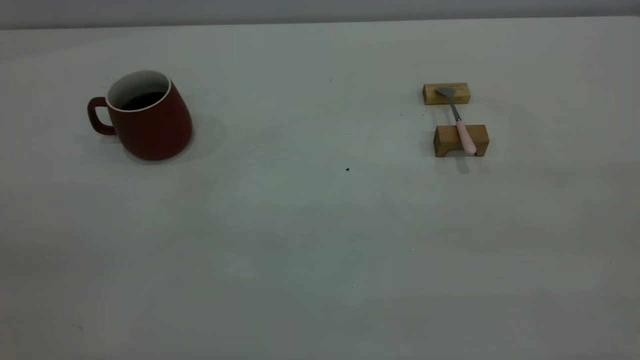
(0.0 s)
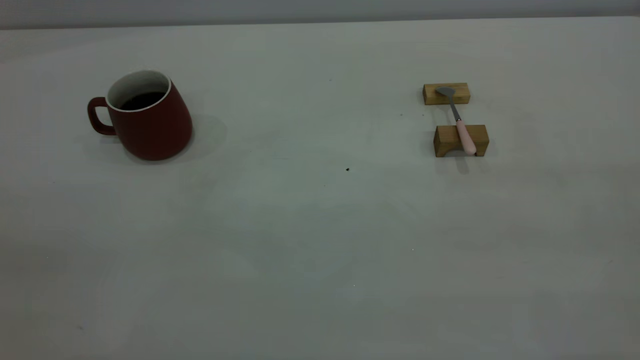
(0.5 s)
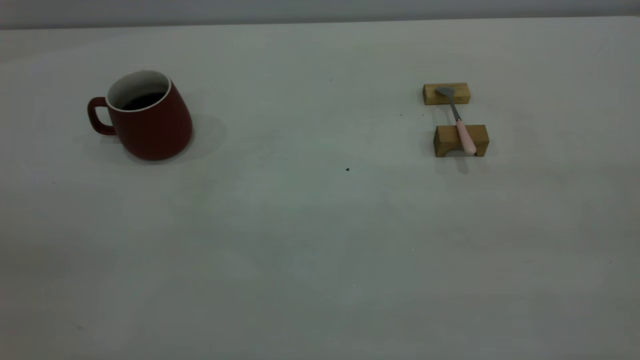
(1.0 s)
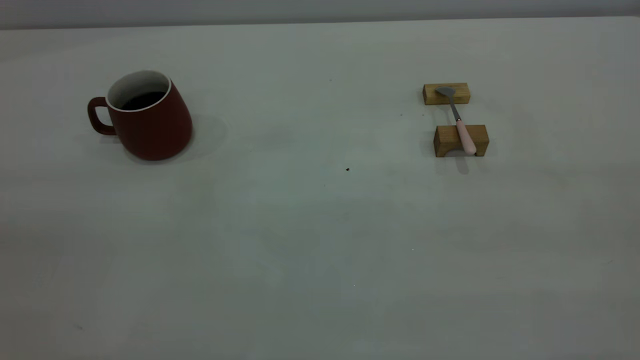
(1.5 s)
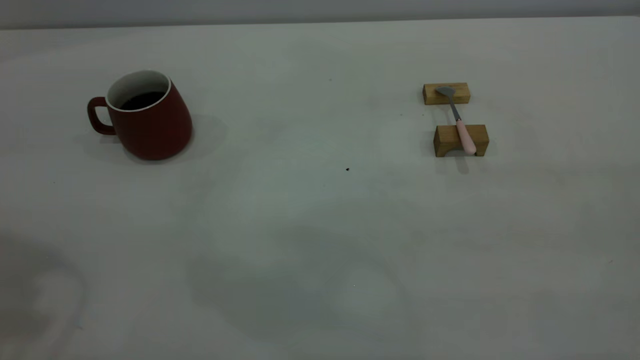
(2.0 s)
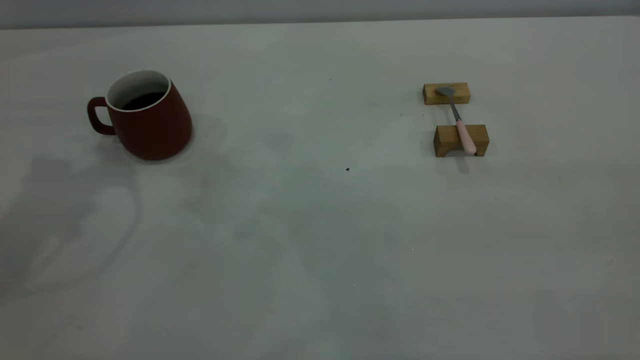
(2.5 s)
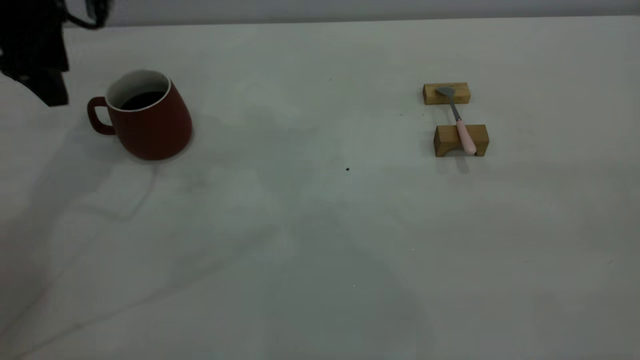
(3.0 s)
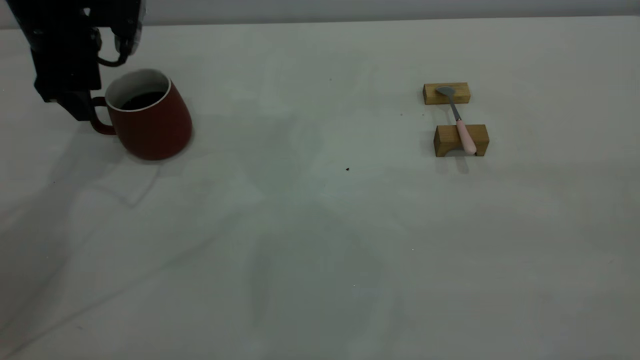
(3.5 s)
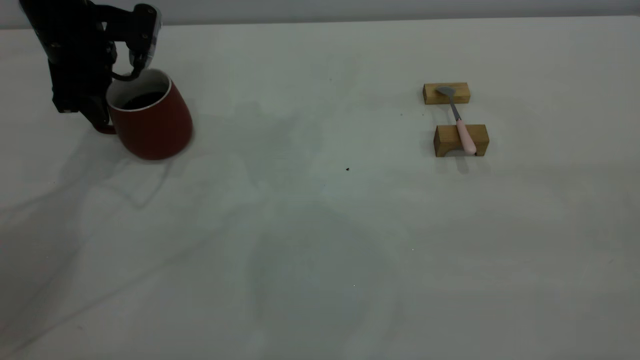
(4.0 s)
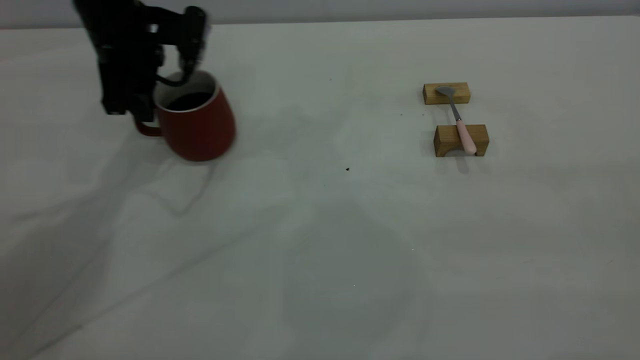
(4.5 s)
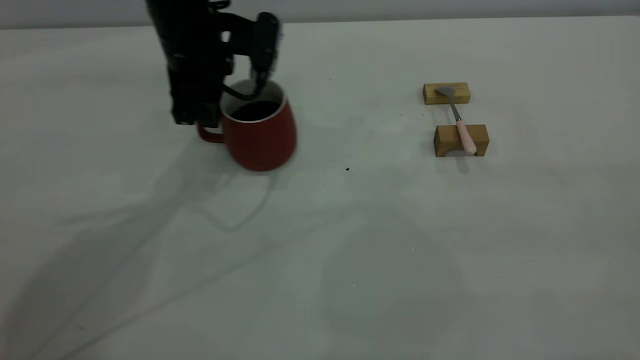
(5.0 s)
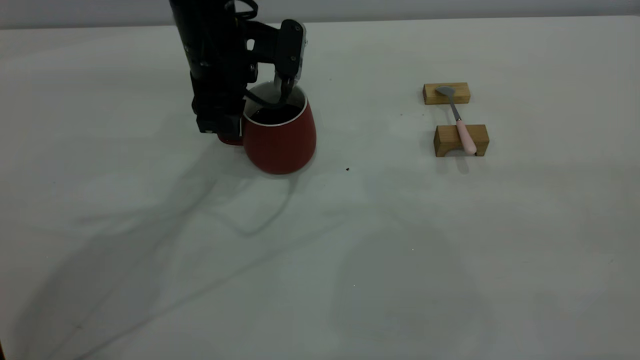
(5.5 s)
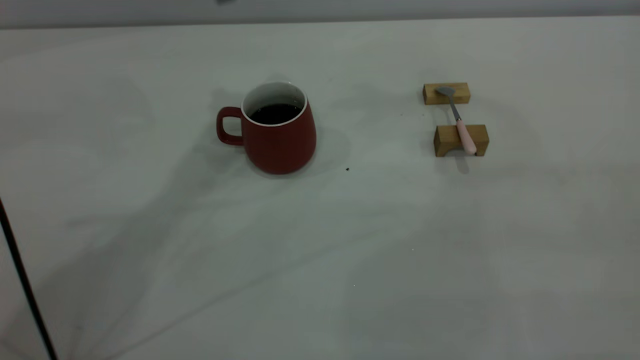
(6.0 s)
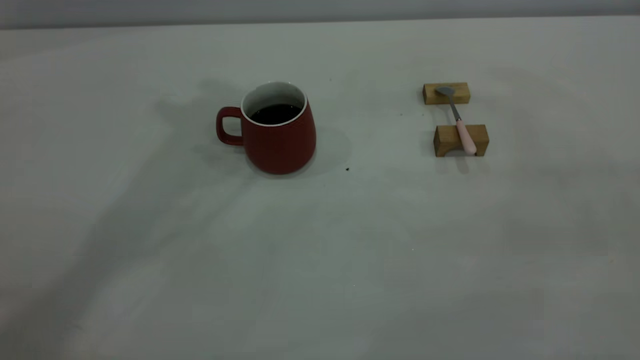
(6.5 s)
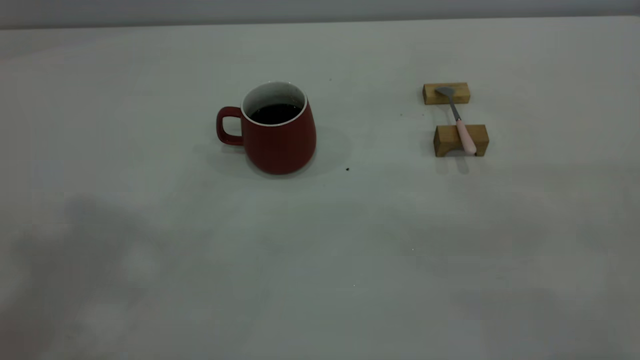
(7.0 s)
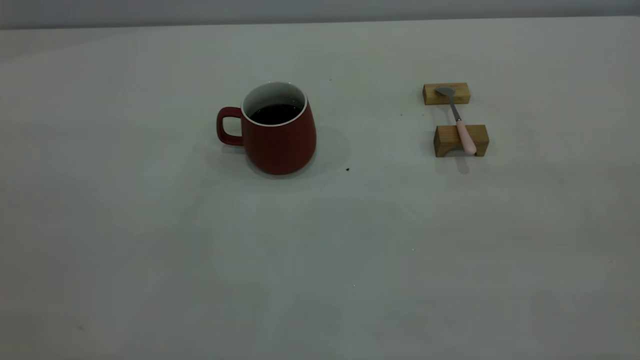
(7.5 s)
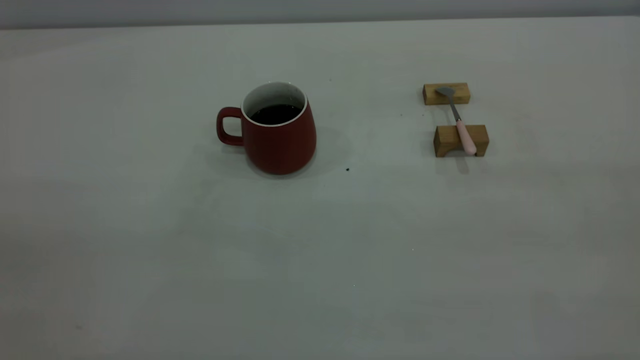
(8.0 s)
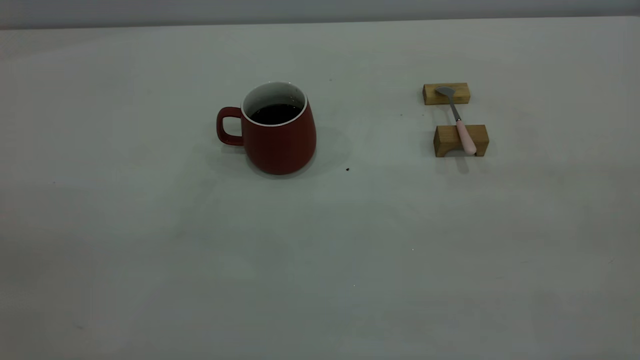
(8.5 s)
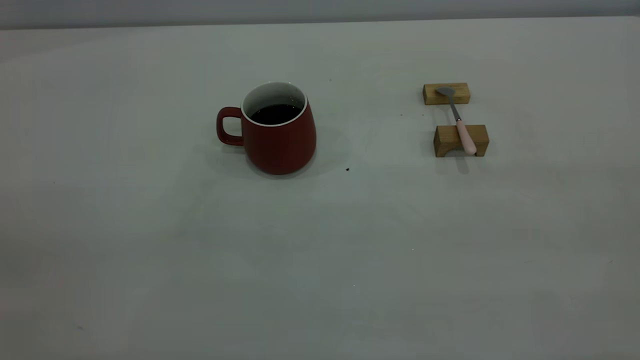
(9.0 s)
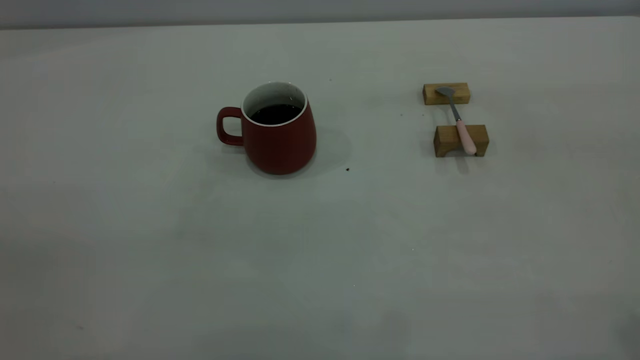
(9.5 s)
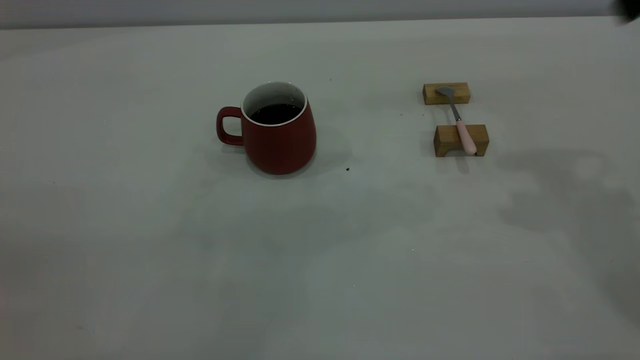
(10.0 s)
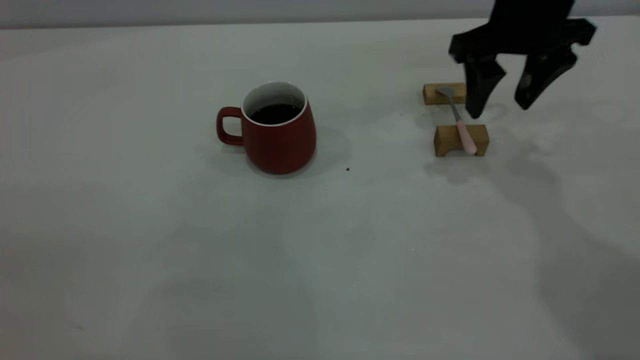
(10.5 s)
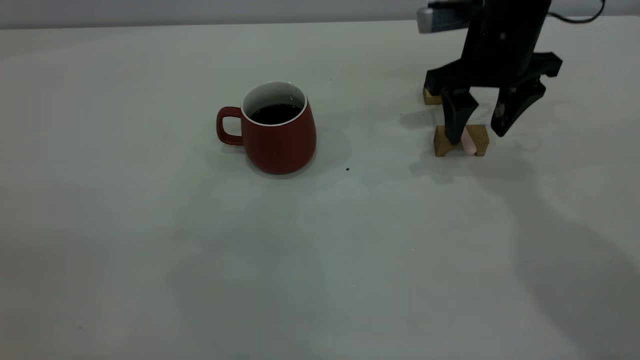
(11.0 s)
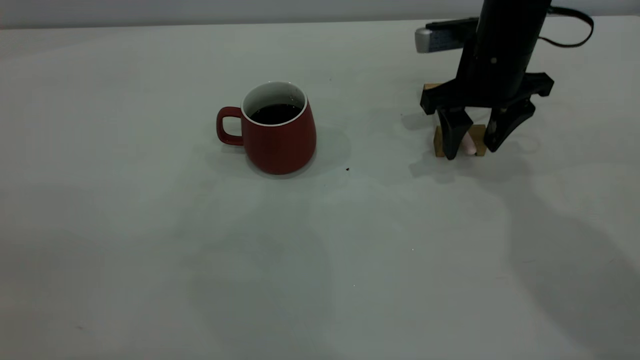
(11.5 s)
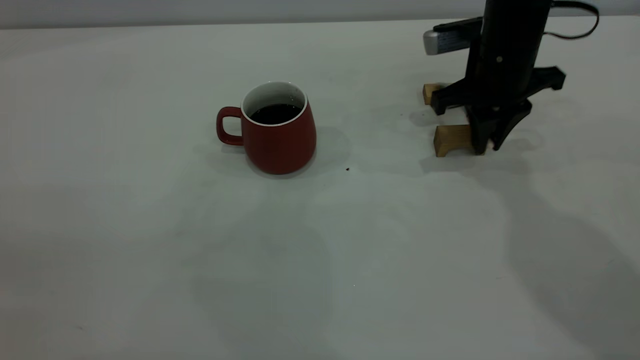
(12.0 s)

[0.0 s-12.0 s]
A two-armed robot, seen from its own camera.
Step, 0.0 to 5.5 s: Move the cup with coffee to the center of view.
2.0 to 4.0 s: The left gripper heads forward and downward, covering some 35 cm, and closes up.
4.0 to 6.0 s: The left gripper heads upward and to the right, covering some 25 cm, and opens.
6.0 to 8.0 s: The left gripper heads backward and to the left, covering about 50 cm, and closes.
10.0 to 12.0 s: The right gripper moves downward and forward, roughly 20 cm, and closes up.

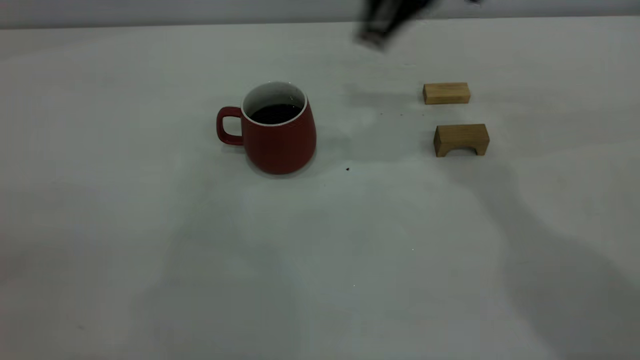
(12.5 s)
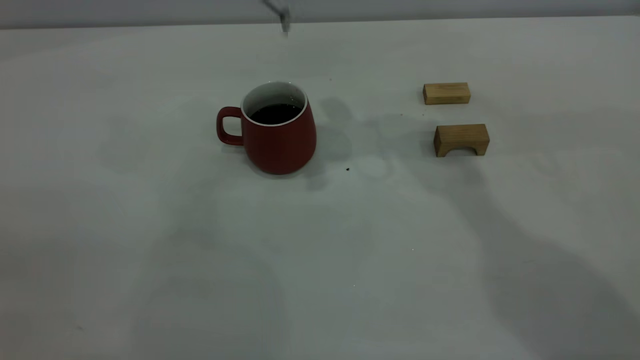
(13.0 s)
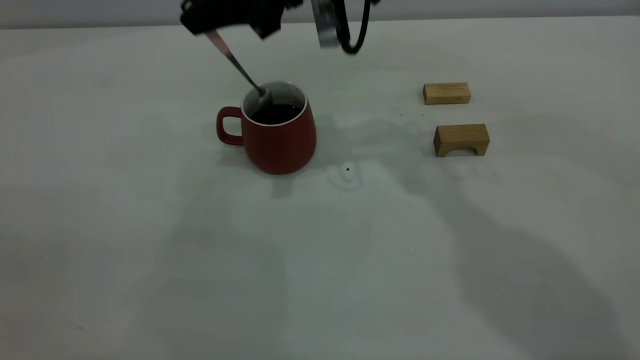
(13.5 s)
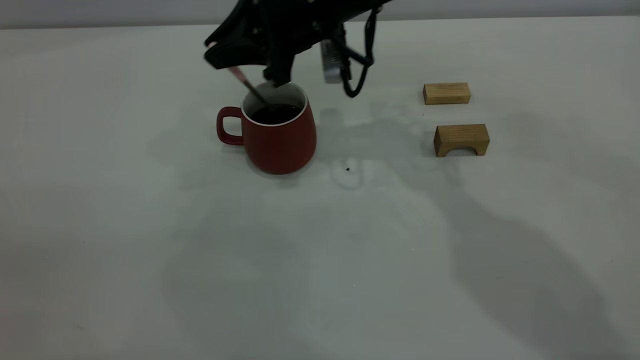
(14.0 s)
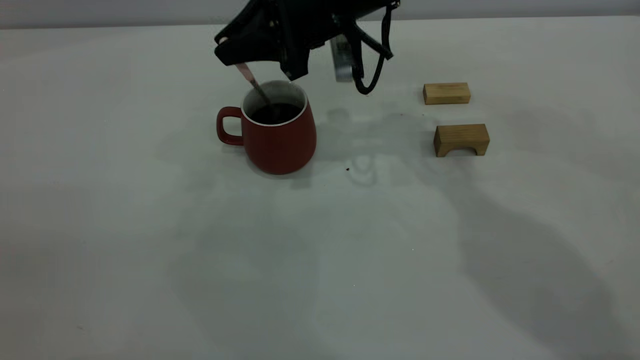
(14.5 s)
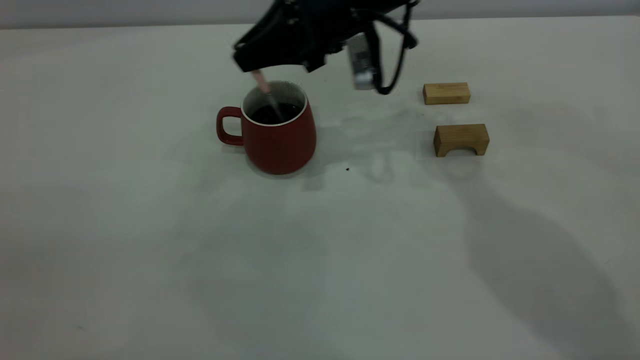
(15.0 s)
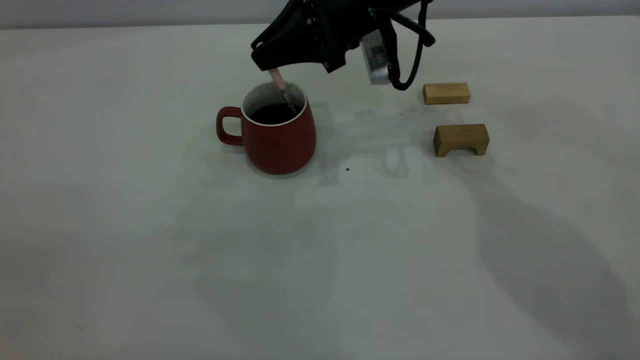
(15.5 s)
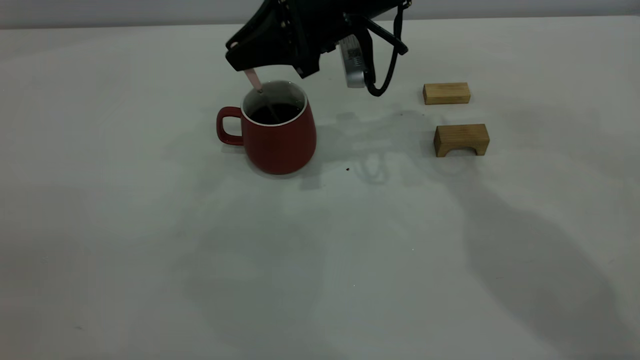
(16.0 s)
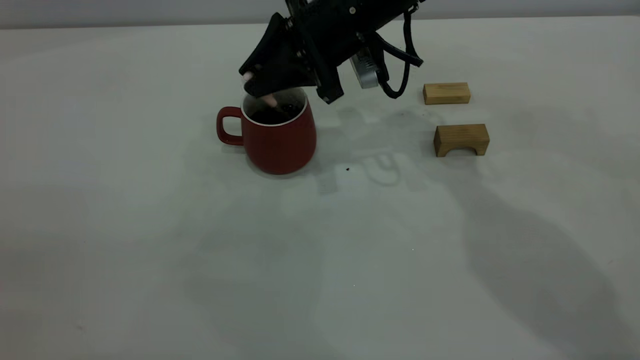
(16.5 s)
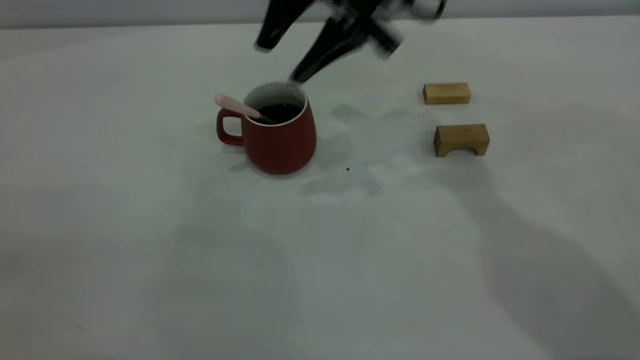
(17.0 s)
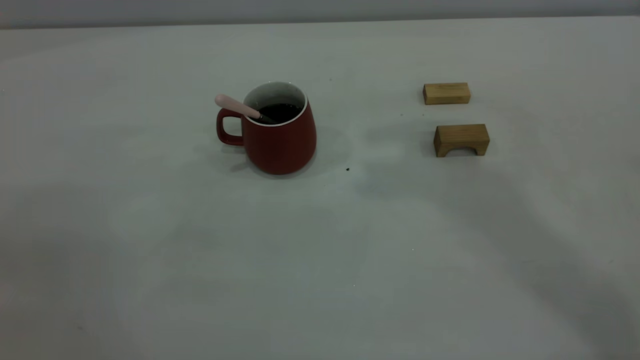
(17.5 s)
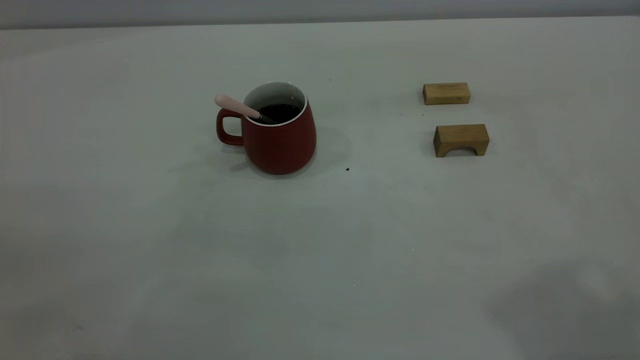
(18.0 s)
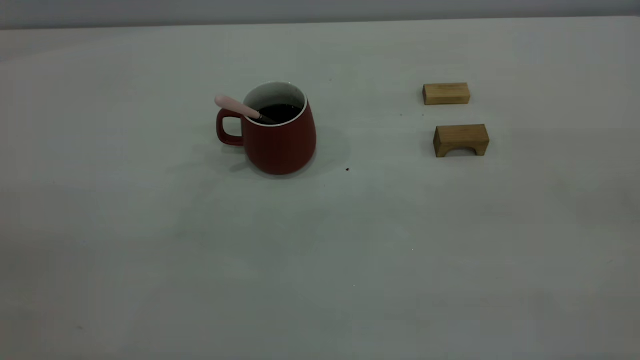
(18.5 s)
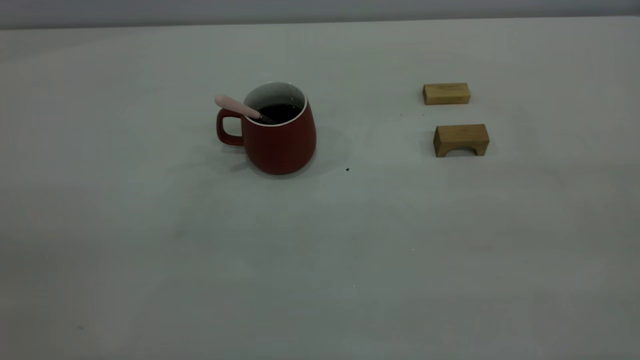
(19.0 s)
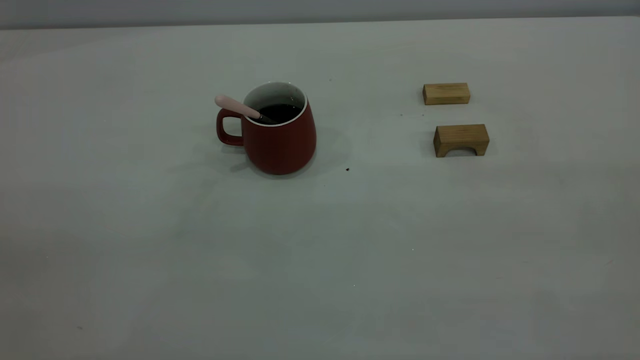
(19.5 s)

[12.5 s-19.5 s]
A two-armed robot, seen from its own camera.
Step, 12.5 to 17.0 s: Stir the coffee in the cup.
12.5 to 14.5 s: The right gripper is displaced downward and to the left by approximately 10 cm.
14.5 to 16.0 s: There are only small adjustments of the grippers.
16.0 to 17.5 s: The right gripper goes roughly 35 cm upward, and opens.

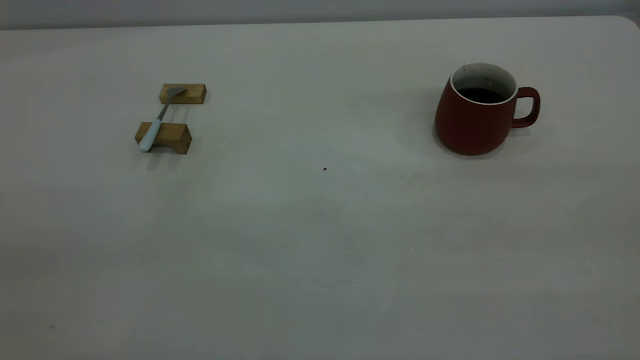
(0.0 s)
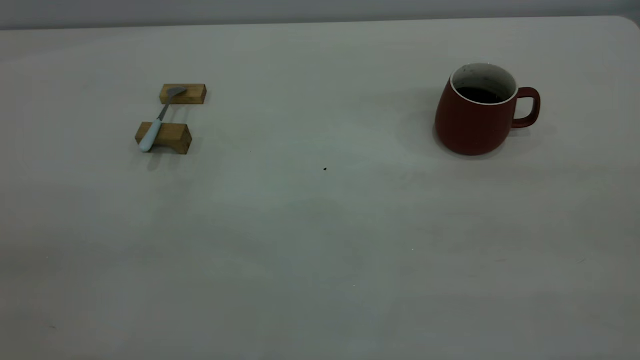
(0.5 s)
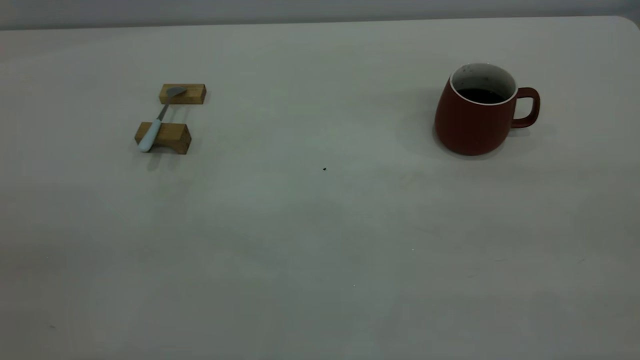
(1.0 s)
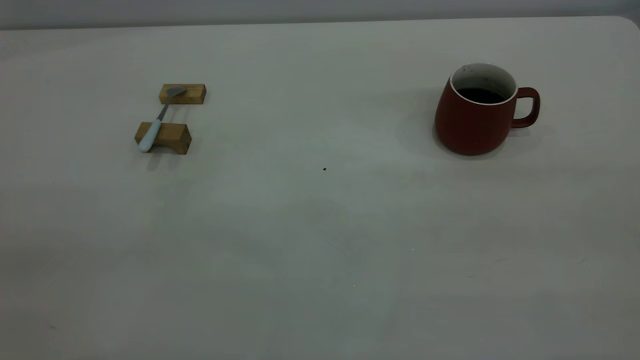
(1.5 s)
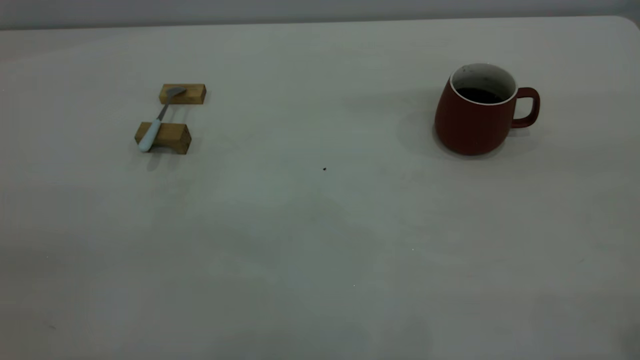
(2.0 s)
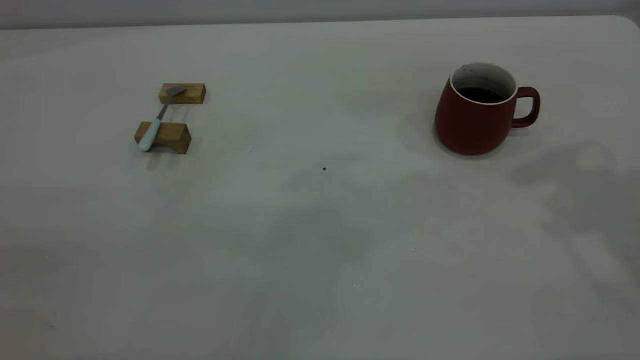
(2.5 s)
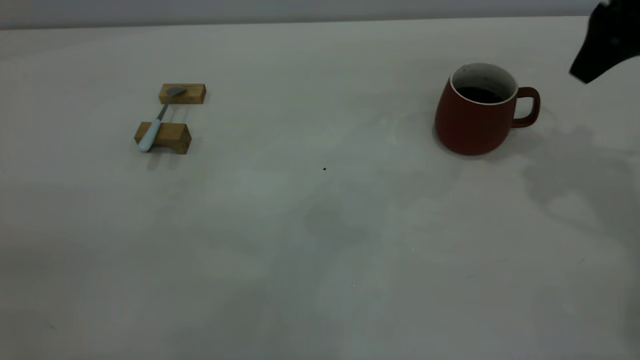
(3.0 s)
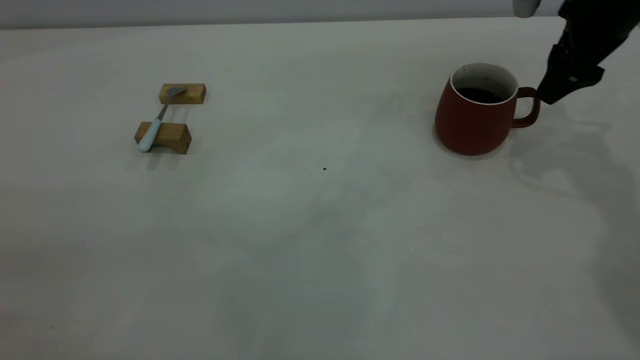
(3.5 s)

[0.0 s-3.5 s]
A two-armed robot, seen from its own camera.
2.0 to 3.5 s: The right gripper shifts roughly 40 cm forward and downward.
